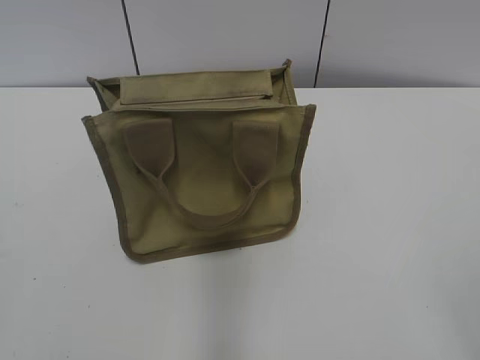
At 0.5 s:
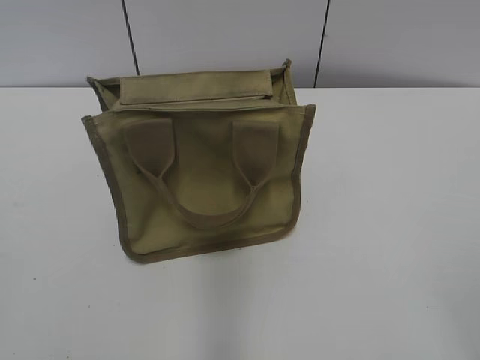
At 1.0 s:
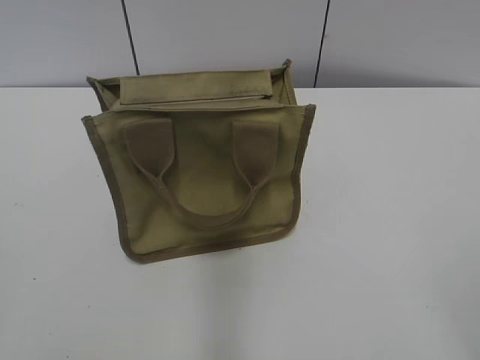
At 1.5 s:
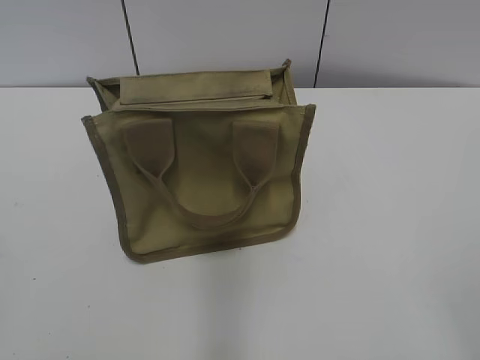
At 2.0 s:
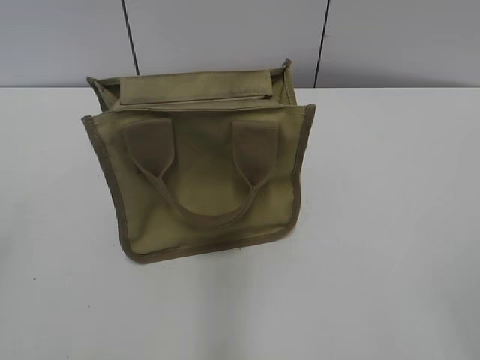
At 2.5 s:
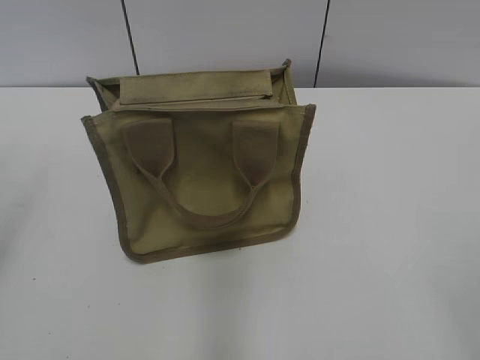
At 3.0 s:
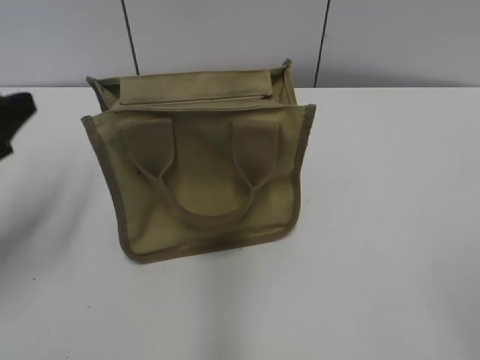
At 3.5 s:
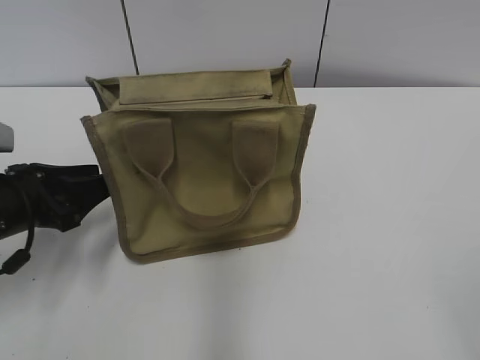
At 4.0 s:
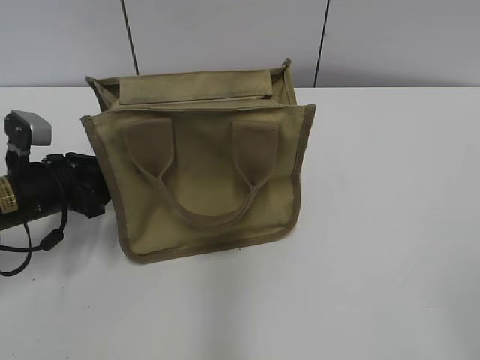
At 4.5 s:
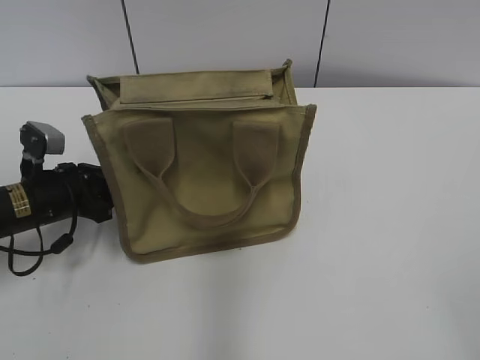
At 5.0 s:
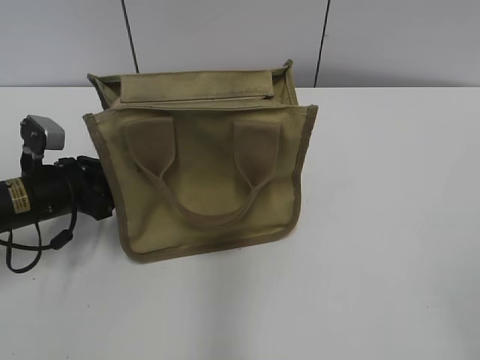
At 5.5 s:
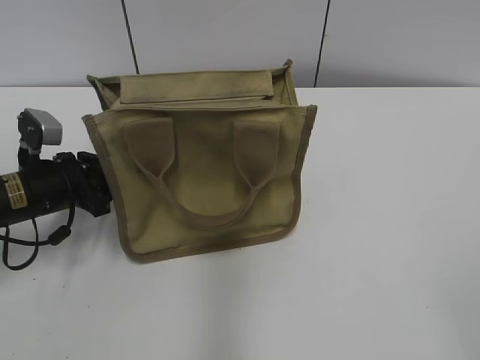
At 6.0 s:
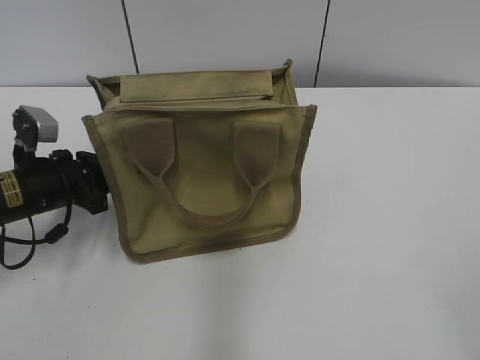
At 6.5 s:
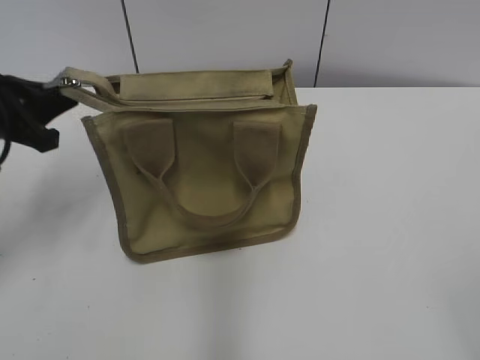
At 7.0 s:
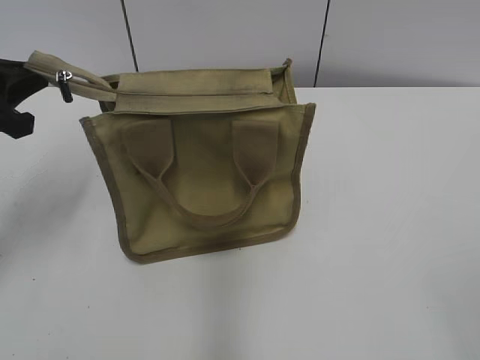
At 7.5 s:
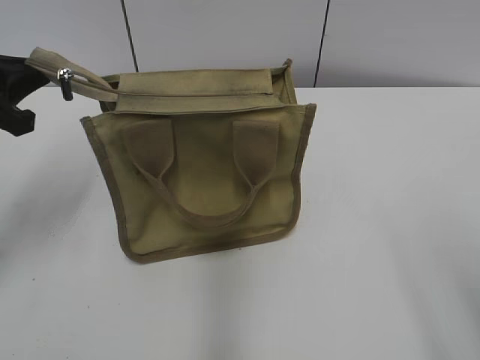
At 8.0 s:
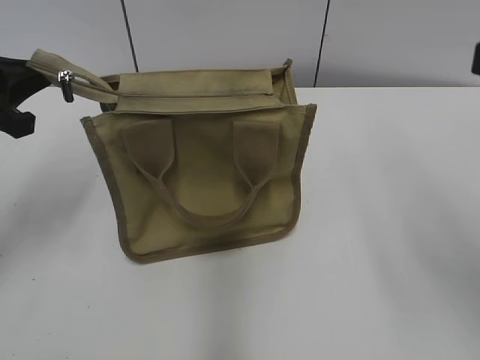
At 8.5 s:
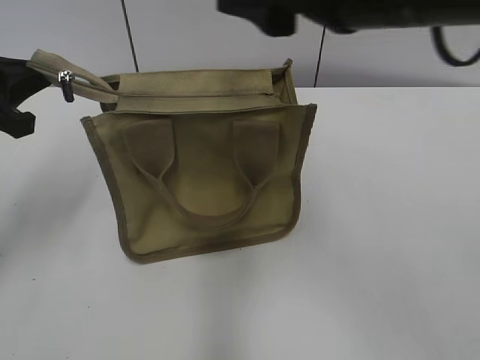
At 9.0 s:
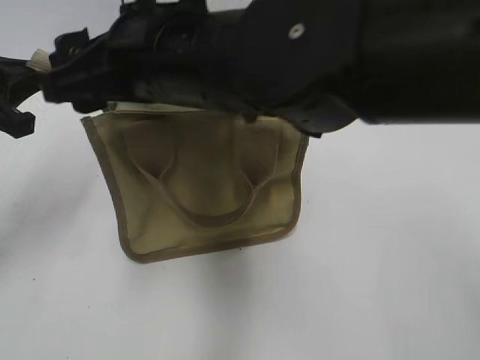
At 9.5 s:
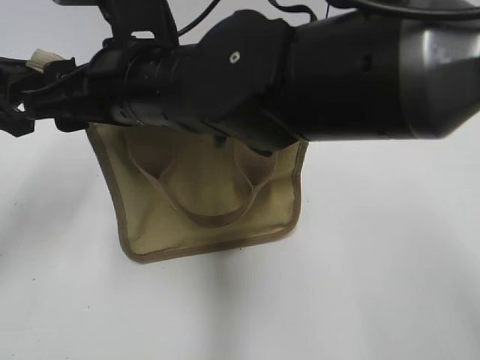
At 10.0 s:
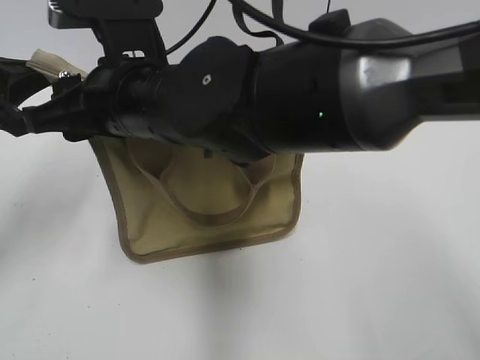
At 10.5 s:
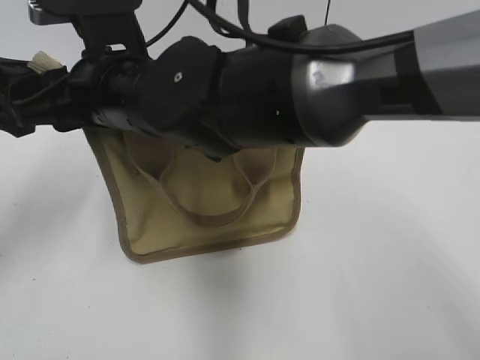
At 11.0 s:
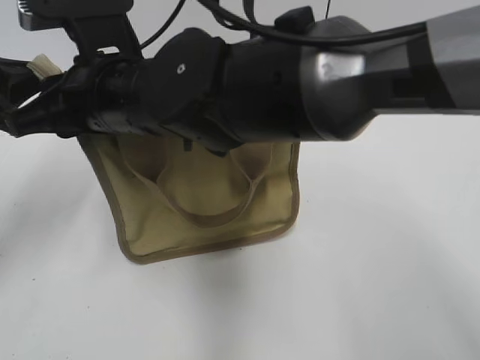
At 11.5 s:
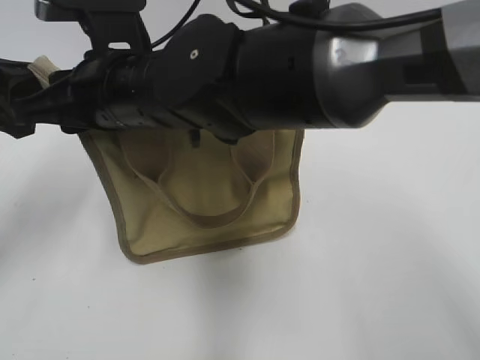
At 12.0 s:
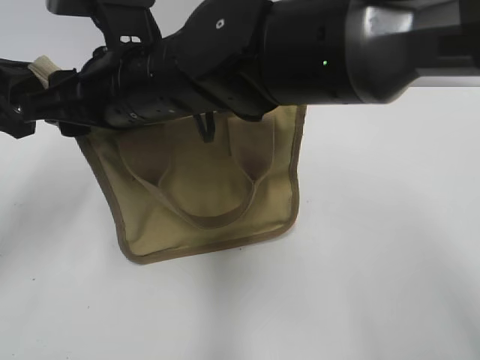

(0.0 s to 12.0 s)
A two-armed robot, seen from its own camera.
2.0 s - 4.0 s: The left gripper moves forward and downward, approximately 35 cm, and closes up.
4.0 s - 6.0 s: The left gripper closes up.
6.0 s - 8.0 s: The right gripper shifts roughly 15 cm forward and upward. The left gripper is displaced upward by about 15 cm.
8.0 s - 10.0 s: The right gripper heads to the left, covering roughly 30 cm.

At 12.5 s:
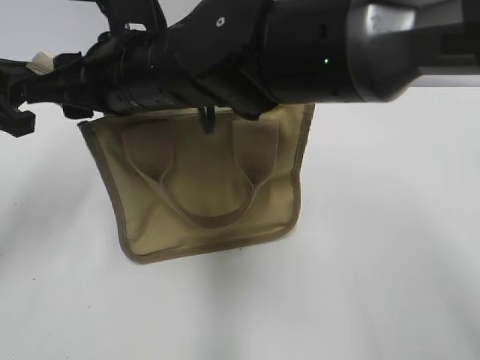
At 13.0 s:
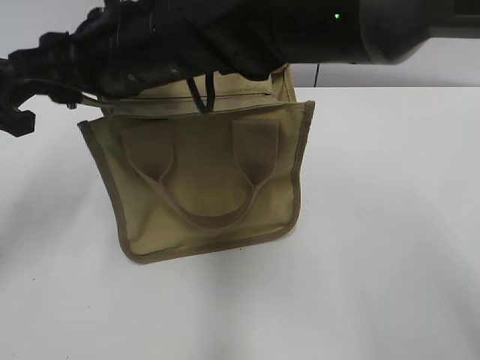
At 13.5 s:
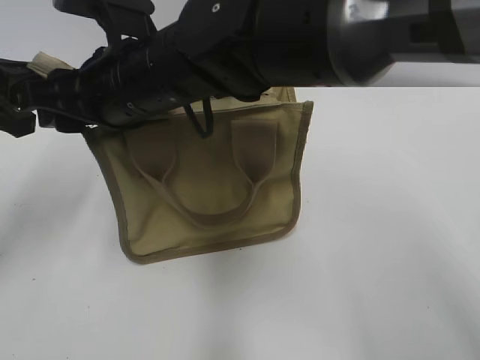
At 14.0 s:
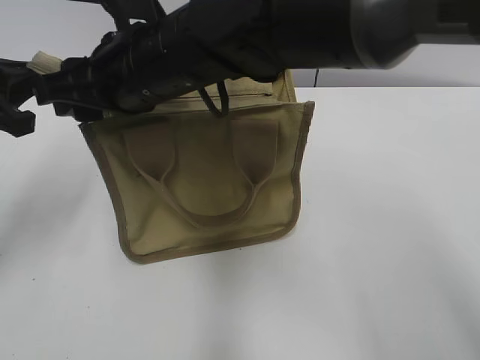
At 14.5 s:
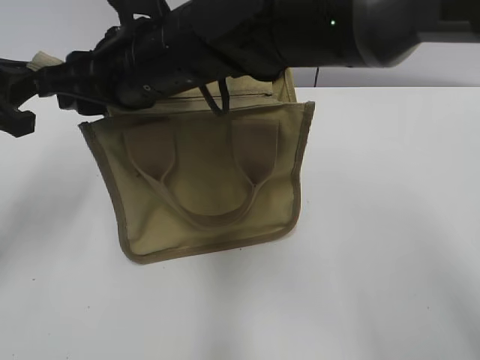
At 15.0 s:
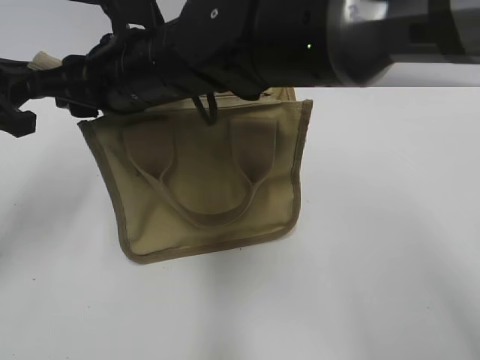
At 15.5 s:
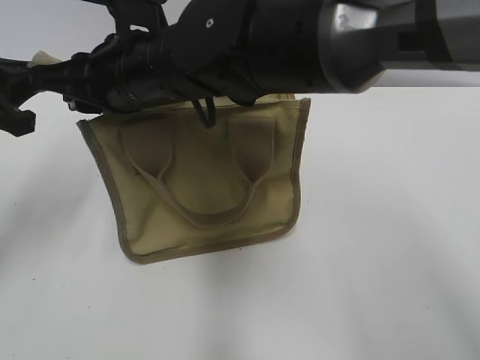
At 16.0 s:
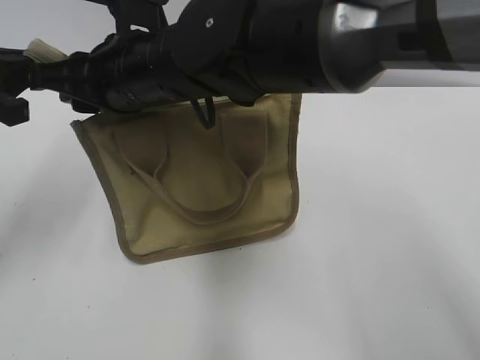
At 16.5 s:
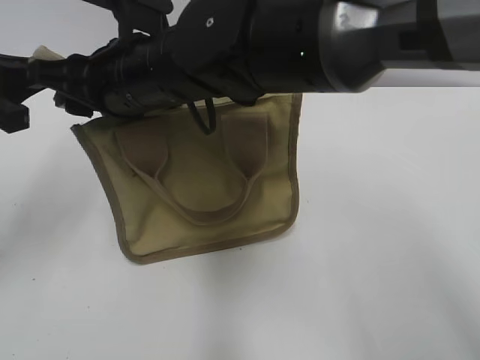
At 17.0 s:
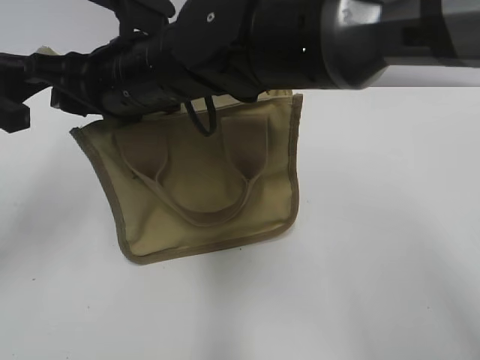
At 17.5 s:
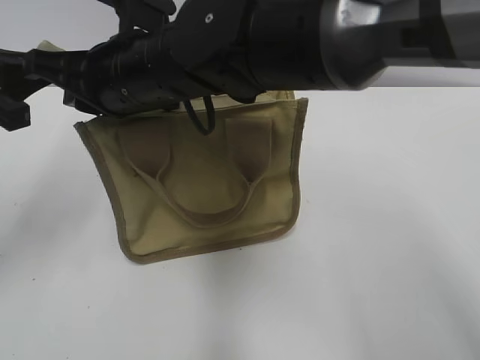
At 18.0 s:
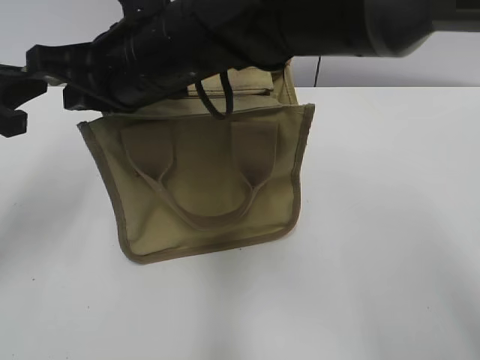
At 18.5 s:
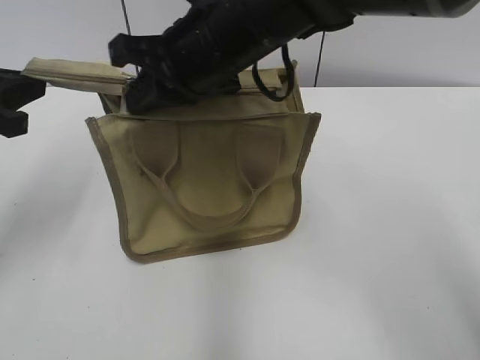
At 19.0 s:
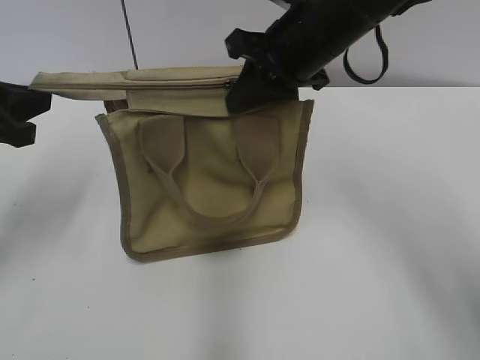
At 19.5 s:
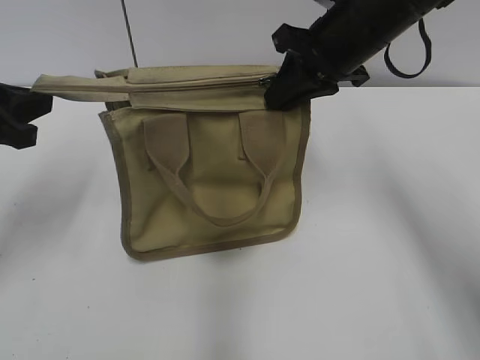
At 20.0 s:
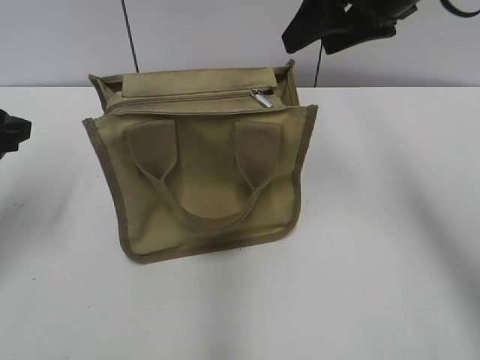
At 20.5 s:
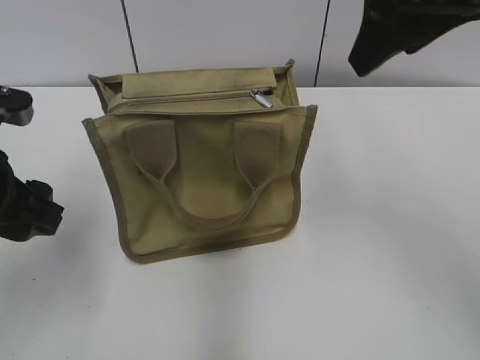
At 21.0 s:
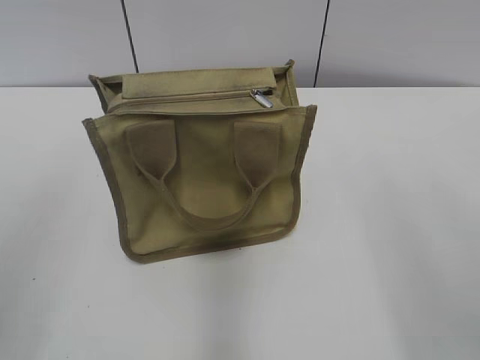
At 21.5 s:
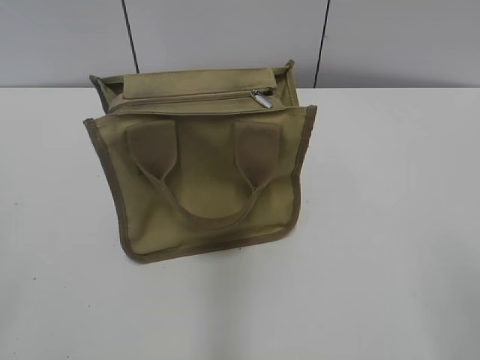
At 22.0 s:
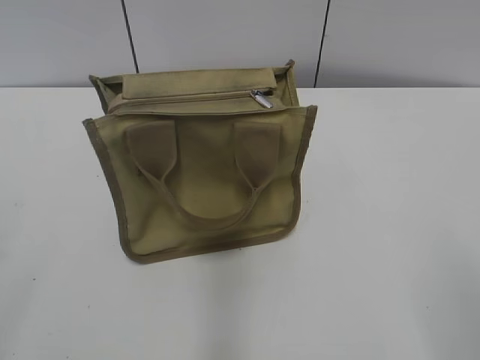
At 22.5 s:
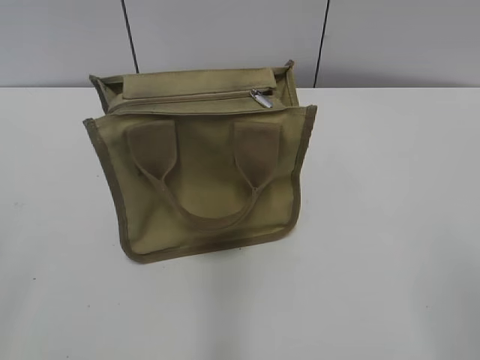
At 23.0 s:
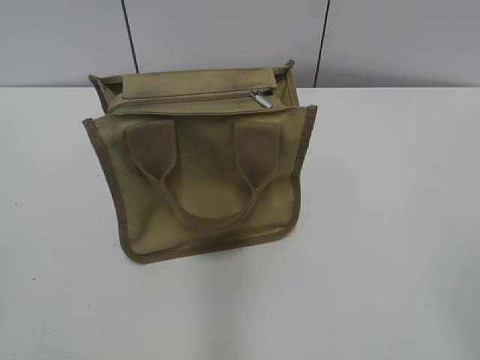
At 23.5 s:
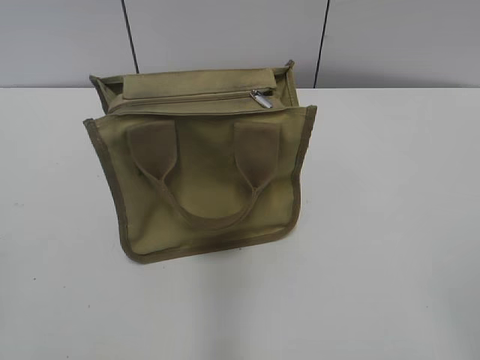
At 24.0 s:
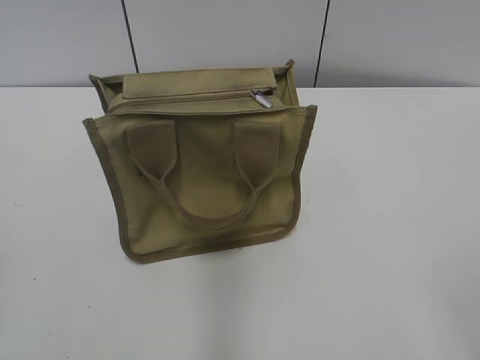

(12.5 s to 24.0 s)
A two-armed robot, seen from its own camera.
Step, 12.5 s - 19.5 s: Zip up the bag with your right hand.
12.5 s - 16.5 s: The grippers move only a little.
16.5 s - 18.5 s: The right gripper goes some 5 cm to the right, and closes up.
18.5 s - 20.0 s: The left gripper opens up. The right gripper is displaced to the right by some 15 cm, and opens its fingers.
20.0 s - 22.0 s: Both grippers move backward, some 30 cm.

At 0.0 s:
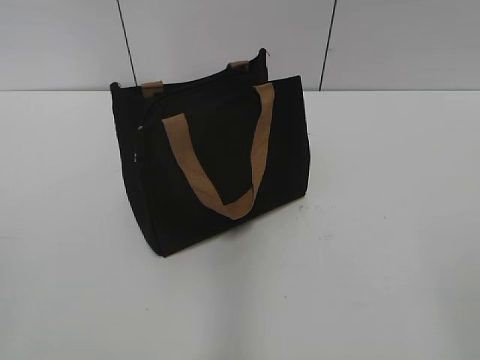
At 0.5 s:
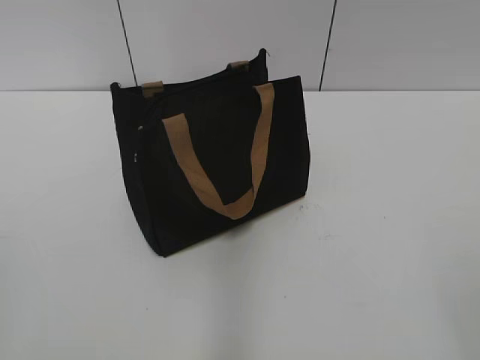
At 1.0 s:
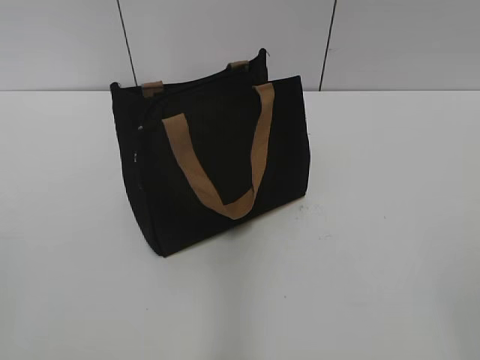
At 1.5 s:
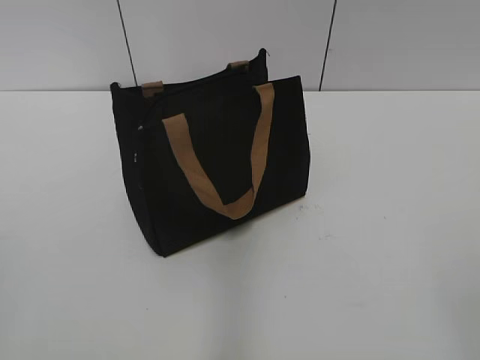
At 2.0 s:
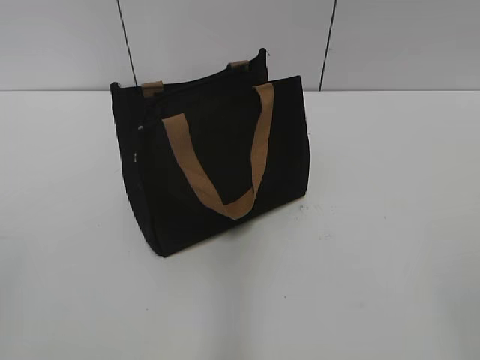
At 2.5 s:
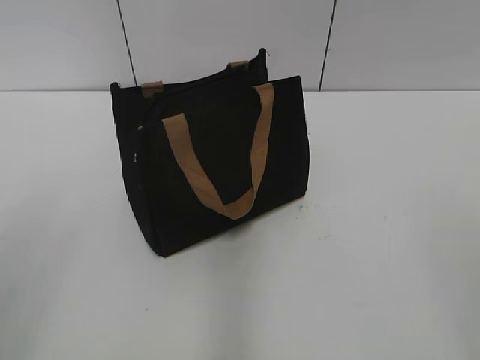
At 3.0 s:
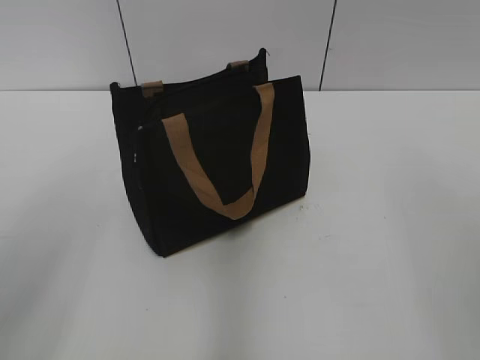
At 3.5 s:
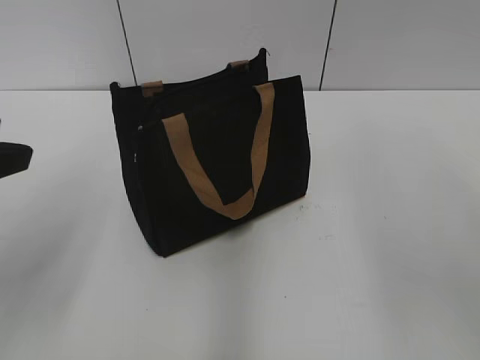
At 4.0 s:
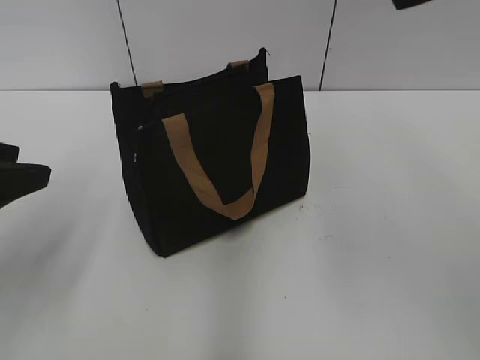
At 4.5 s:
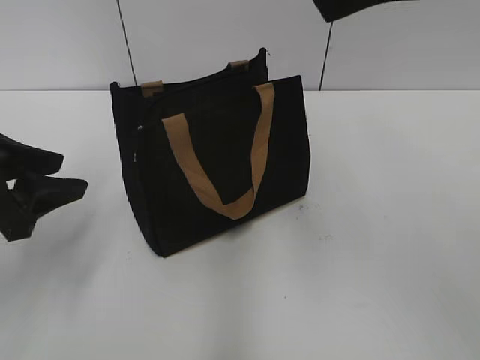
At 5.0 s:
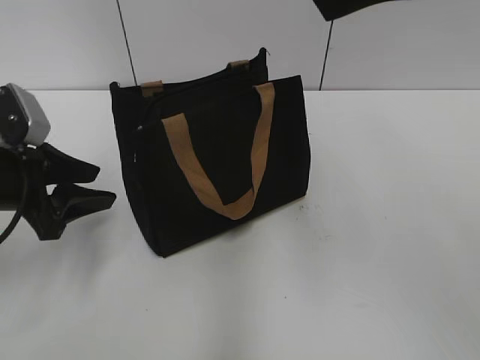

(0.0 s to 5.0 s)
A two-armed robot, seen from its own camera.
2.5 s - 5.0 s: The right gripper is displaced forward and to the left by about 25 cm. Meanwhile the left gripper moves forward and downward, approximately 25 cm.
